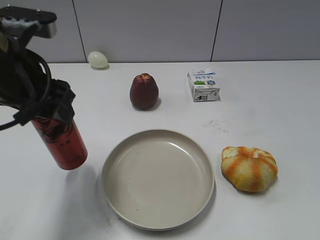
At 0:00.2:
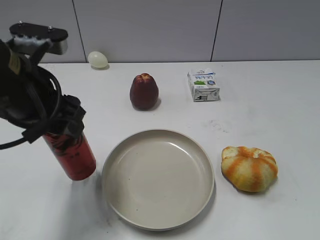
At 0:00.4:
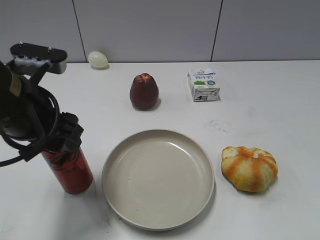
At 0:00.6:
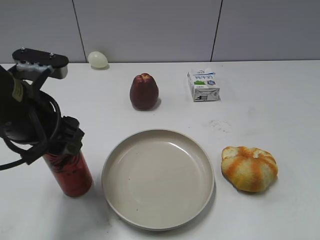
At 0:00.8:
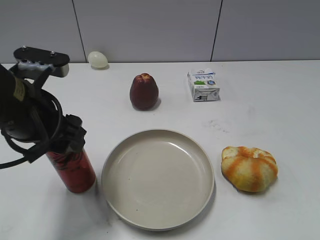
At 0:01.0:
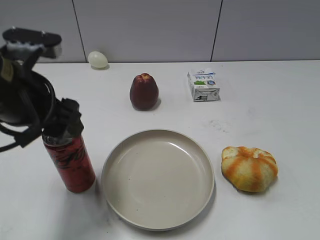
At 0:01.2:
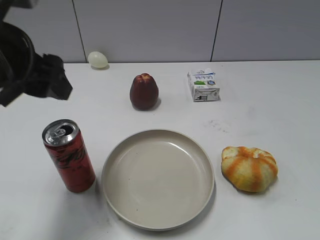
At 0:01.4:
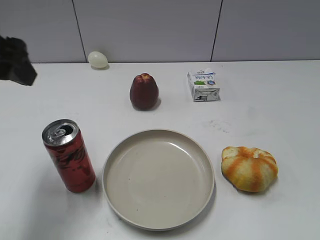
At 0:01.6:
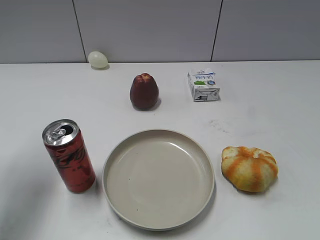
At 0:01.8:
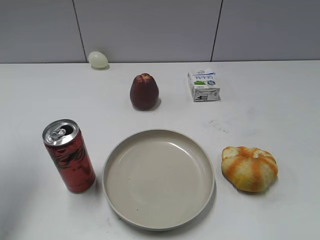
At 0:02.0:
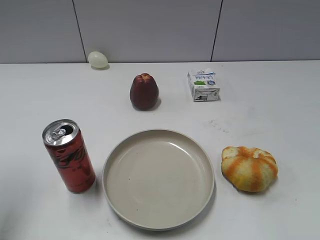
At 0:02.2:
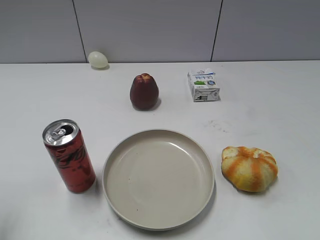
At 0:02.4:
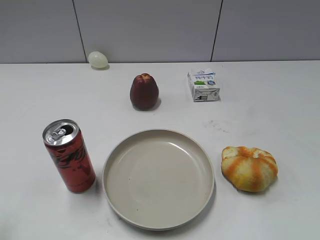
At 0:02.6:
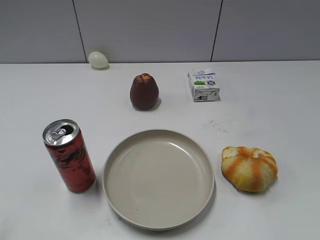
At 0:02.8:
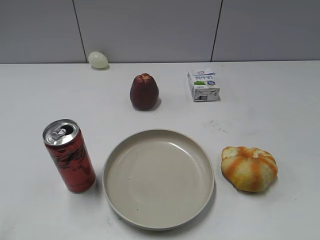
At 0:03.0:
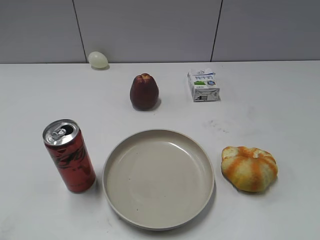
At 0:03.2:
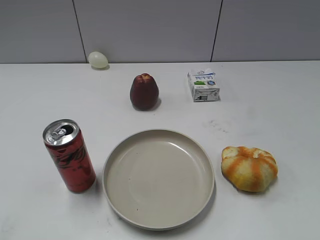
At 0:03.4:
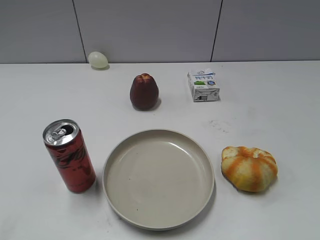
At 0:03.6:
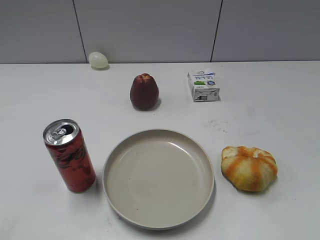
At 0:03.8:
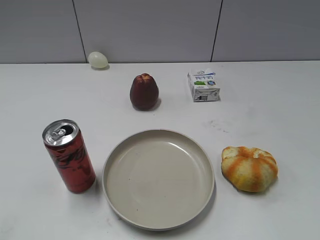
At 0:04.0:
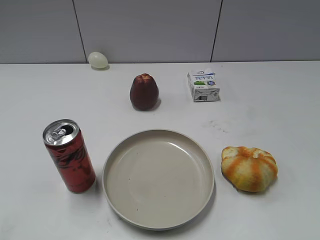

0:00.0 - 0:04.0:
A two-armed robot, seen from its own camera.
Step, 0:00.0 - 0:01.0: Place the cola on the table with left gripper.
0:00.0 - 0:01.4: The left gripper travels to the left by approximately 5 cm, and opens up.
0:01.4 - 0:02.6: The left gripper shifts some 20 cm backward and to the left.
